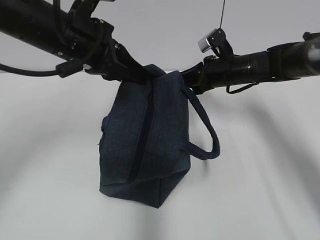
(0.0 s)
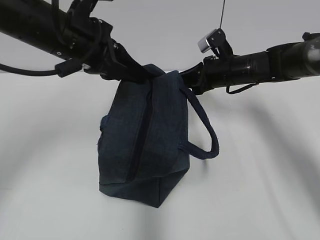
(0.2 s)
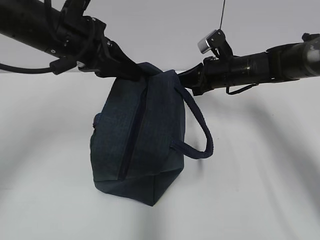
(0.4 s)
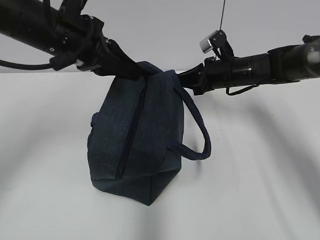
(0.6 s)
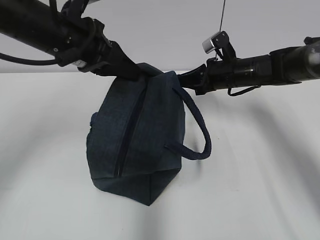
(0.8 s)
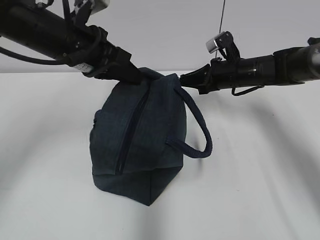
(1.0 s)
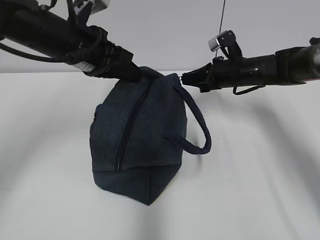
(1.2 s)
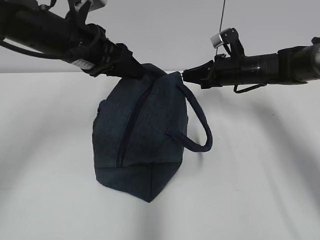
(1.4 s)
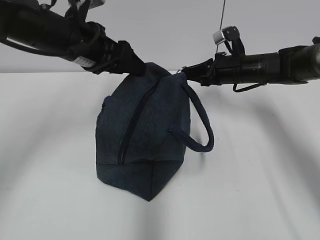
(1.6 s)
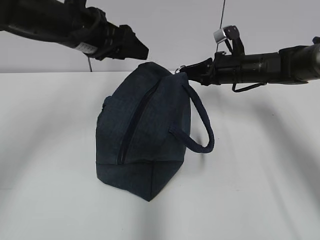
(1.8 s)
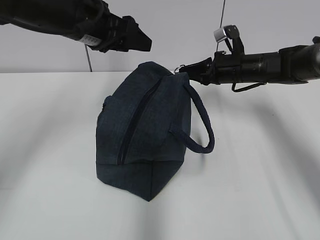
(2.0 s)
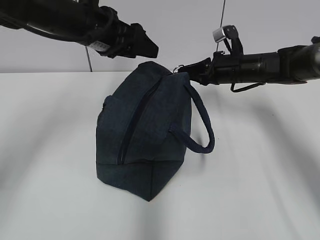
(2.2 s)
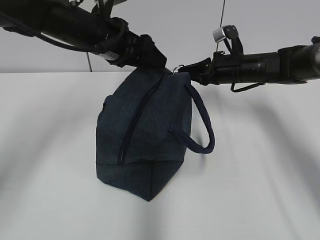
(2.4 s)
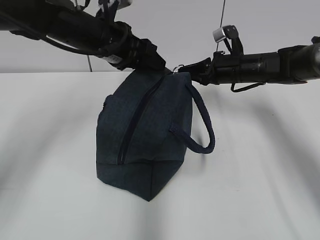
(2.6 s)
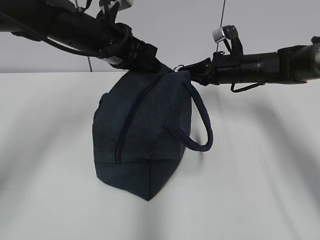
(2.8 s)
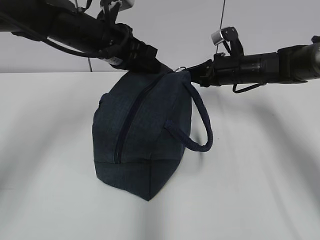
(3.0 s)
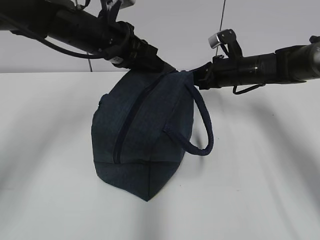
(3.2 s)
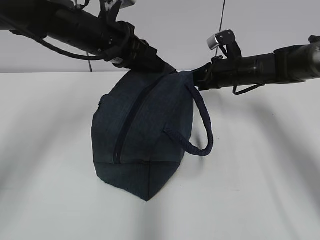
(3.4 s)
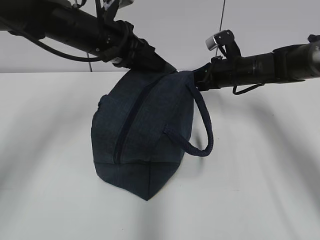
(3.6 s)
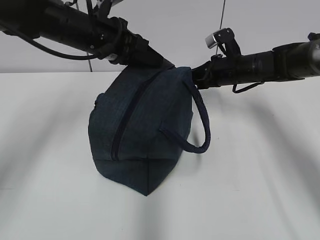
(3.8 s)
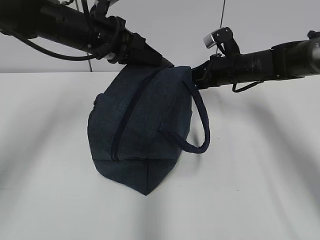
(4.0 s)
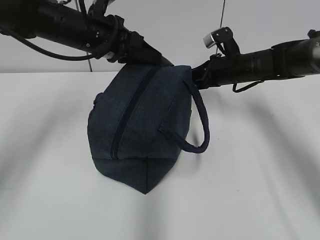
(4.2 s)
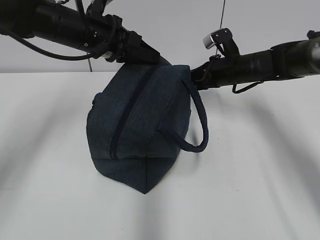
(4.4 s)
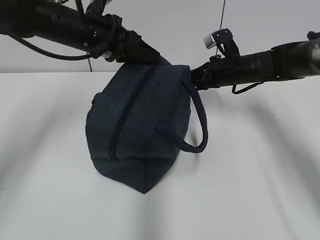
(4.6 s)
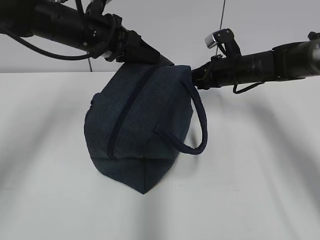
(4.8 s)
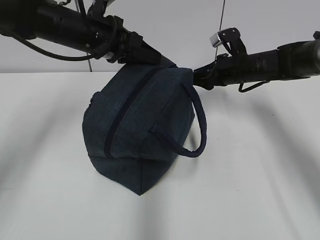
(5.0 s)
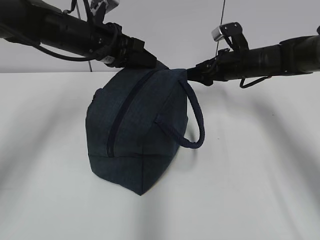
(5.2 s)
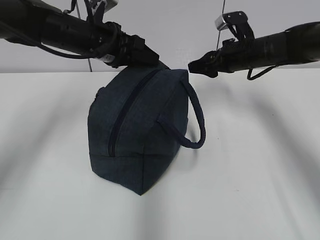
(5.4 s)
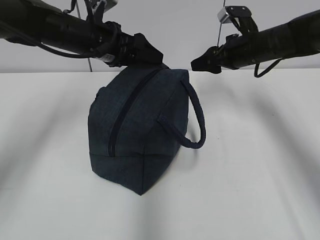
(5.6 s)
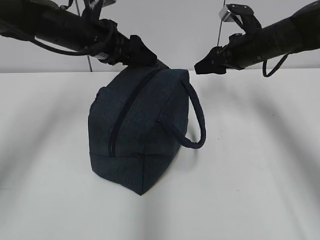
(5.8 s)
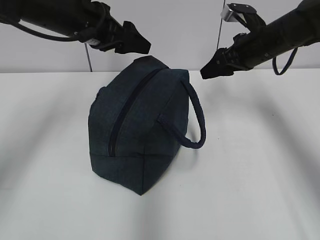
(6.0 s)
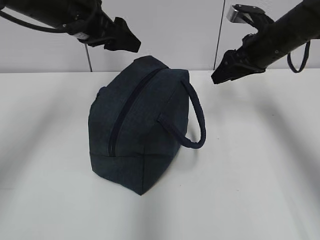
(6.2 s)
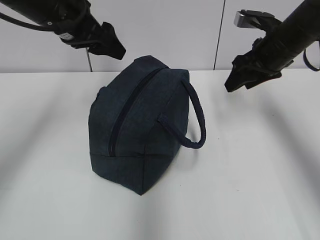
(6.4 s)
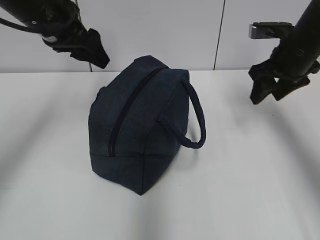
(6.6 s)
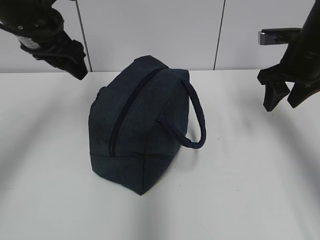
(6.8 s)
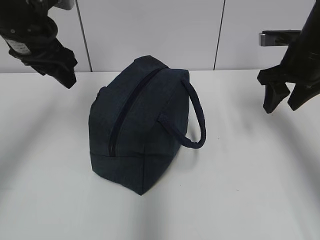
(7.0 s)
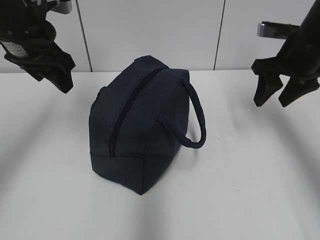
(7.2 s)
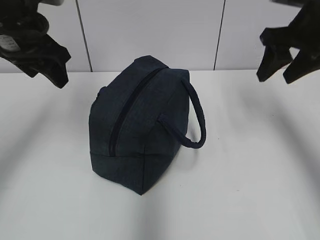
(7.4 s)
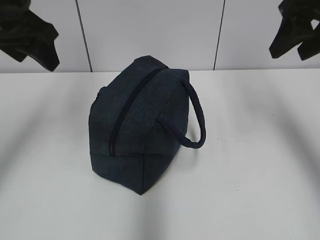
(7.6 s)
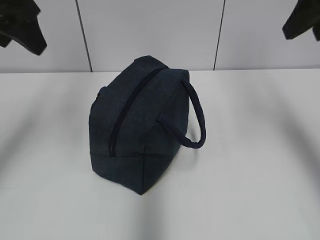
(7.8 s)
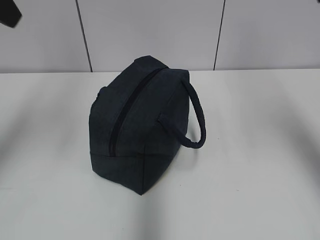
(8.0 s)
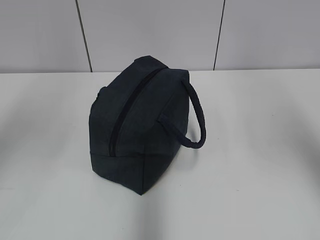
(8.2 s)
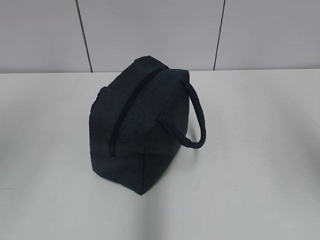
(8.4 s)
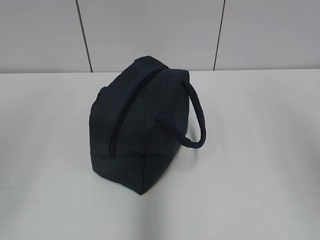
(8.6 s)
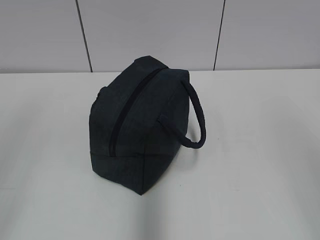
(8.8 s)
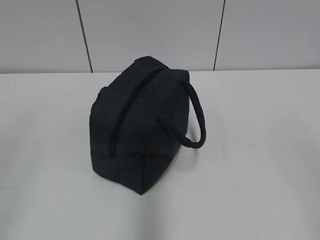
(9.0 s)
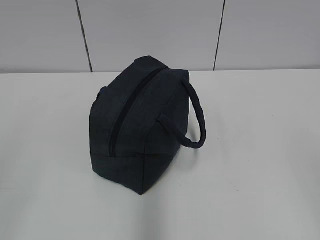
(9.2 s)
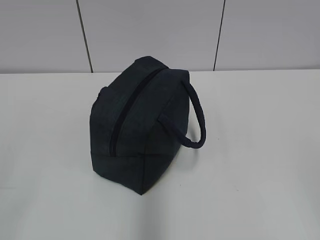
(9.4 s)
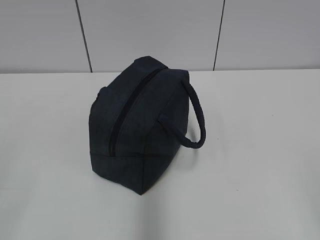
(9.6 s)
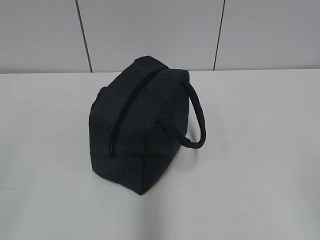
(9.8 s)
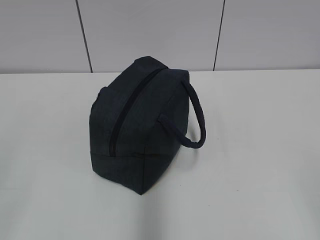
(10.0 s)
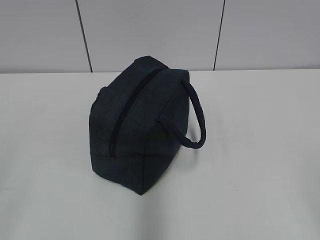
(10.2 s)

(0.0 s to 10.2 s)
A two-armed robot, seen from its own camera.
Step, 0.0 s - 4.6 s: Pull the zipper with your right hand.
Step, 4.8 s - 5.6 s: Grab the lunch bag with your left hand.
0.0 s - 1.4 s: The left gripper opens up.
1.4 s - 3.0 s: The left gripper ends up some 5 cm from where it was, and closes up.
3.0 s - 4.4 s: The grippers move only a little.
4.4 s - 5.8 s: The left gripper opens its fingers. Meanwhile the right gripper travels upward by approximately 5 cm, and opens its fingers.
5.8 s - 7.2 s: The left gripper heads to the left and backward, covering approximately 10 cm, while the right gripper travels backward by some 5 cm.
7.2 s - 8.8 s: The two grippers go about 35 cm backward.

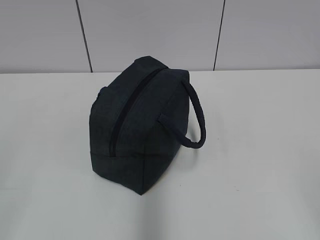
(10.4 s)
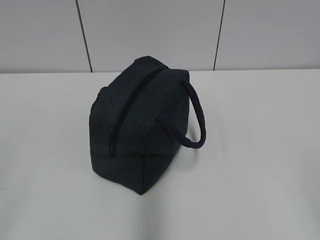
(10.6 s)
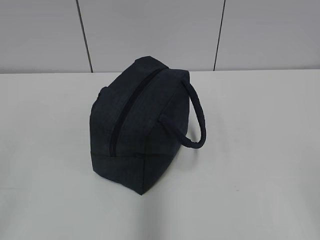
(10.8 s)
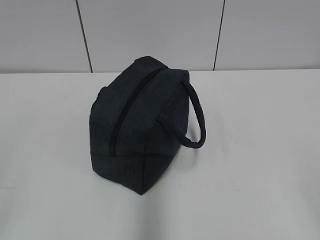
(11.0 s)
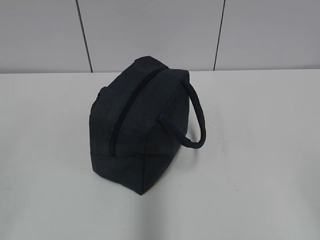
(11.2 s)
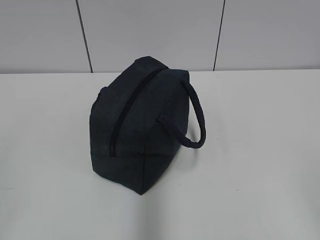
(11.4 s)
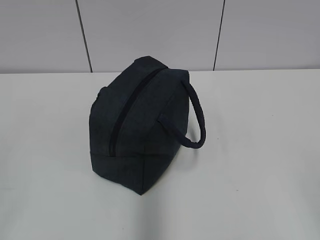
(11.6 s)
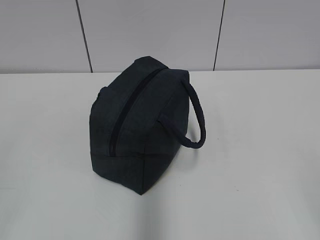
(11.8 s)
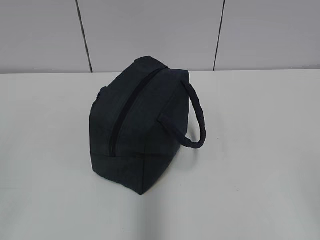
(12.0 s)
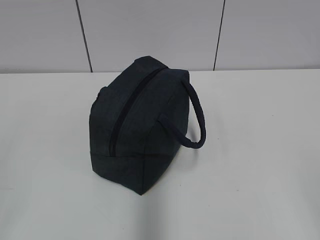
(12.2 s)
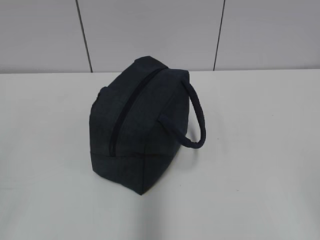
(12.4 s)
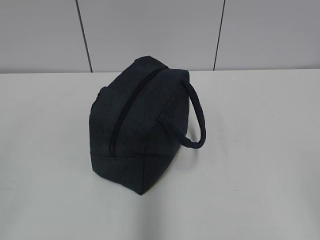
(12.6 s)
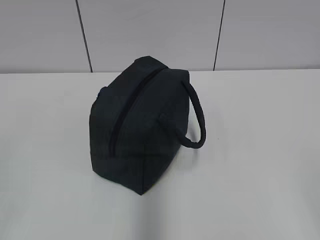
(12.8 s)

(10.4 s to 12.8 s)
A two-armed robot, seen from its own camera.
11.6 s - 12.8 s: Both grippers stay put.

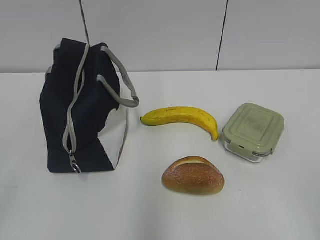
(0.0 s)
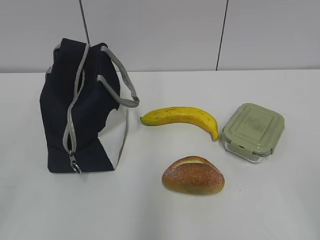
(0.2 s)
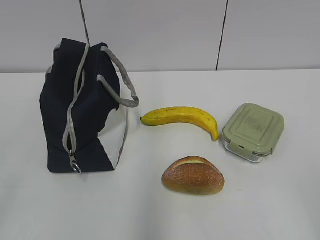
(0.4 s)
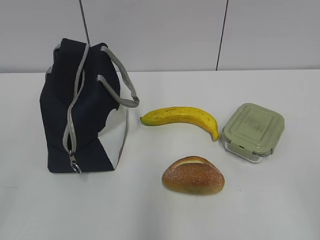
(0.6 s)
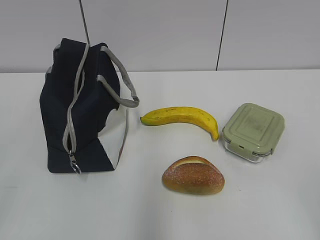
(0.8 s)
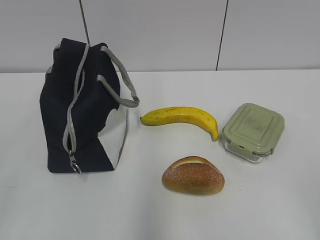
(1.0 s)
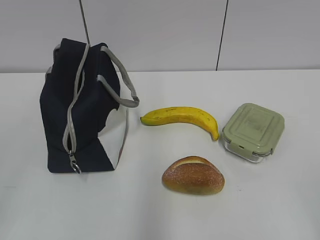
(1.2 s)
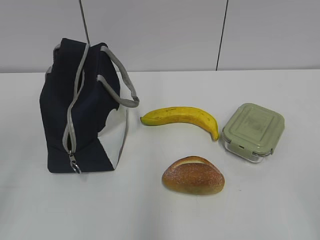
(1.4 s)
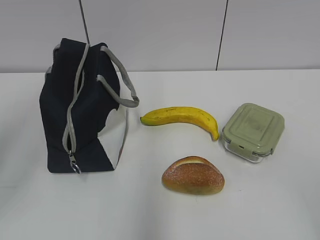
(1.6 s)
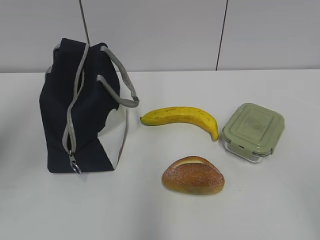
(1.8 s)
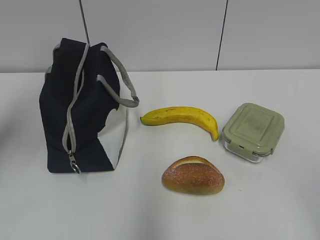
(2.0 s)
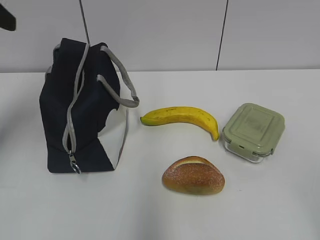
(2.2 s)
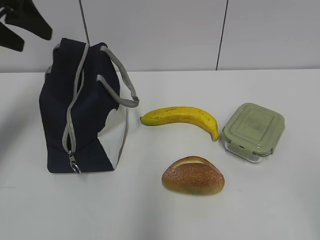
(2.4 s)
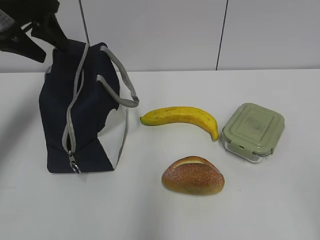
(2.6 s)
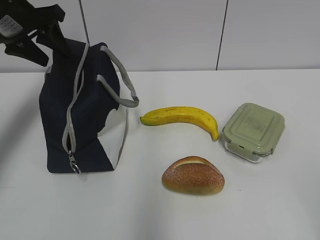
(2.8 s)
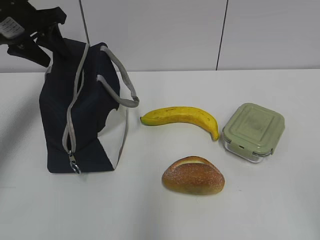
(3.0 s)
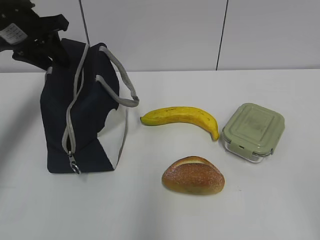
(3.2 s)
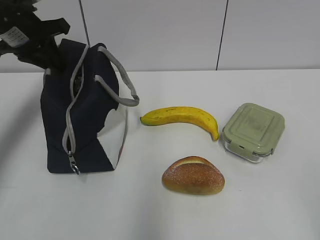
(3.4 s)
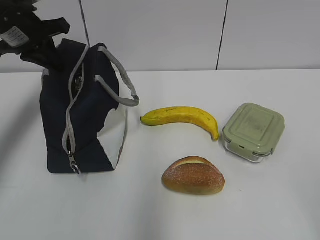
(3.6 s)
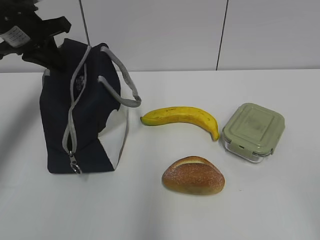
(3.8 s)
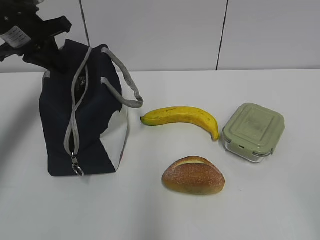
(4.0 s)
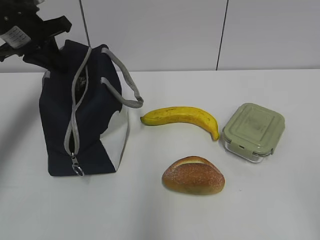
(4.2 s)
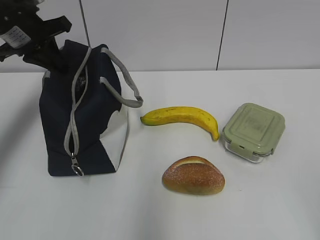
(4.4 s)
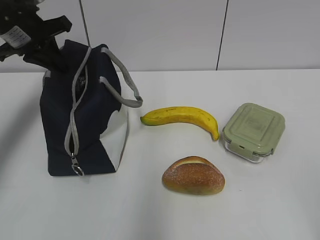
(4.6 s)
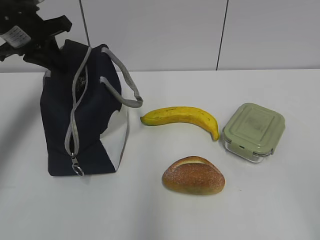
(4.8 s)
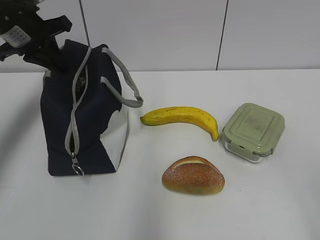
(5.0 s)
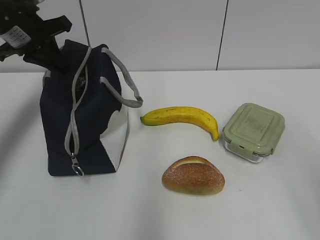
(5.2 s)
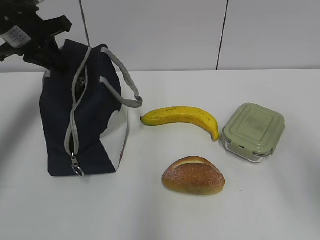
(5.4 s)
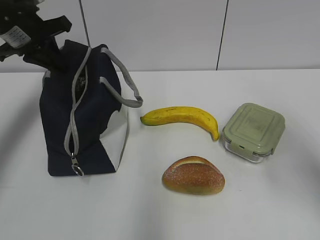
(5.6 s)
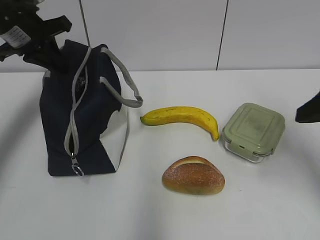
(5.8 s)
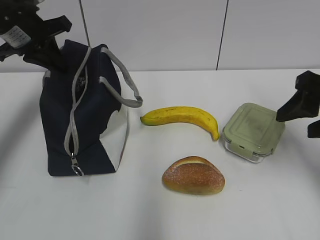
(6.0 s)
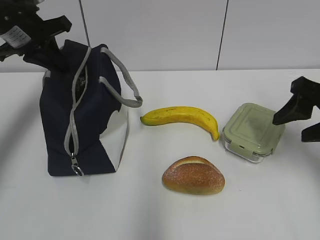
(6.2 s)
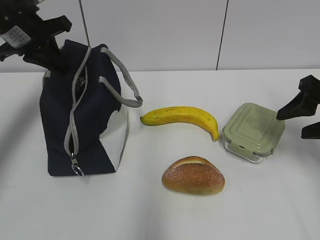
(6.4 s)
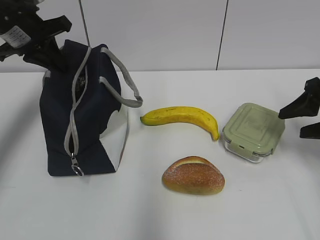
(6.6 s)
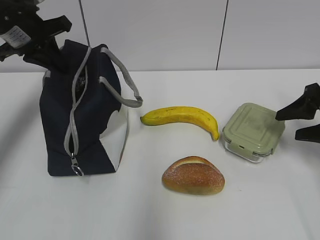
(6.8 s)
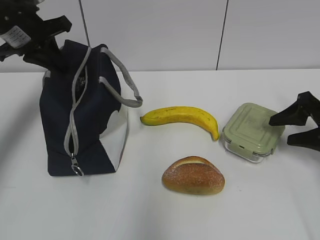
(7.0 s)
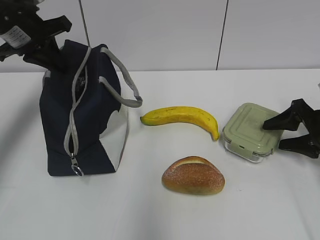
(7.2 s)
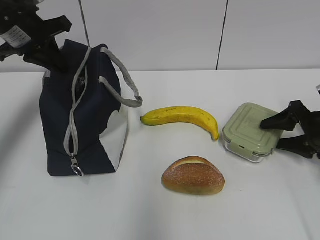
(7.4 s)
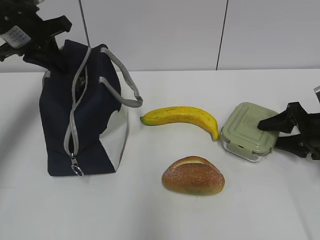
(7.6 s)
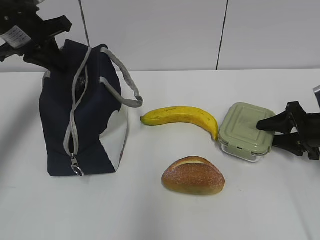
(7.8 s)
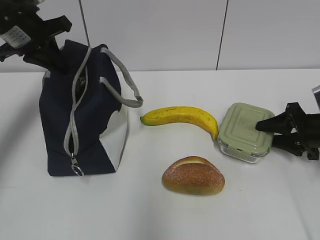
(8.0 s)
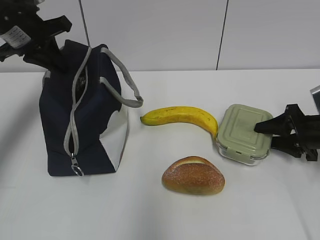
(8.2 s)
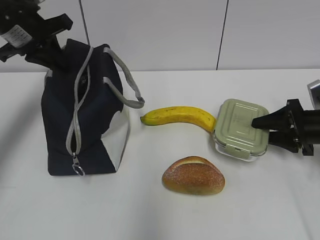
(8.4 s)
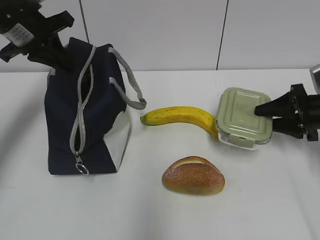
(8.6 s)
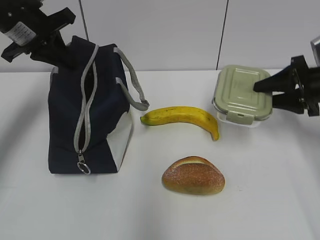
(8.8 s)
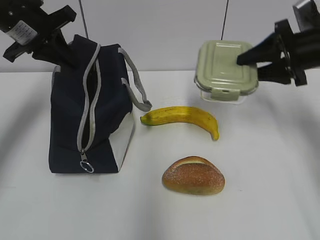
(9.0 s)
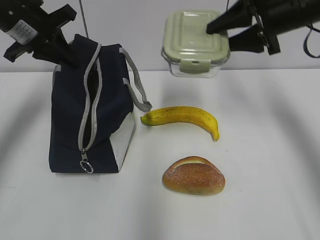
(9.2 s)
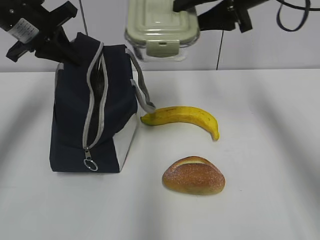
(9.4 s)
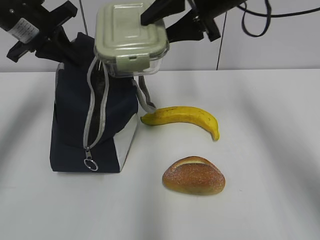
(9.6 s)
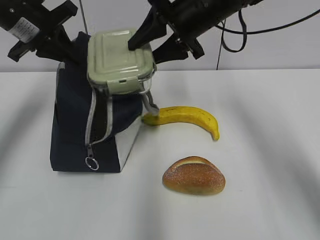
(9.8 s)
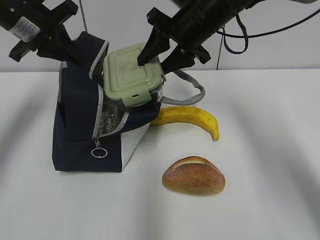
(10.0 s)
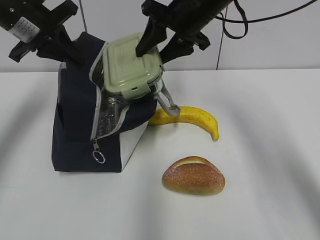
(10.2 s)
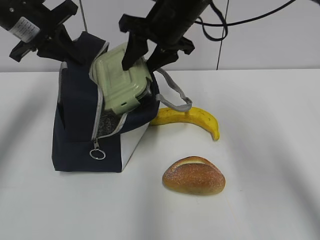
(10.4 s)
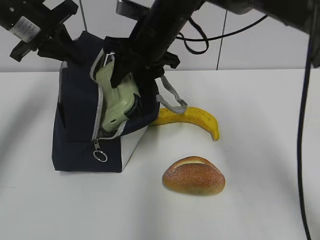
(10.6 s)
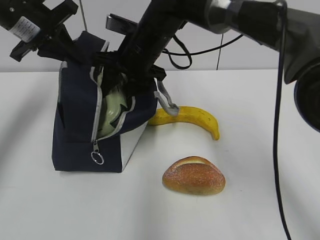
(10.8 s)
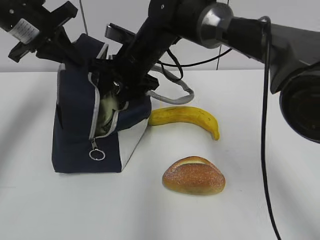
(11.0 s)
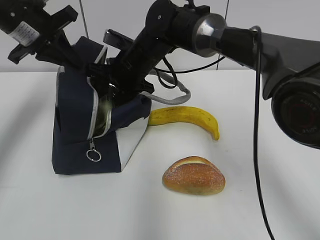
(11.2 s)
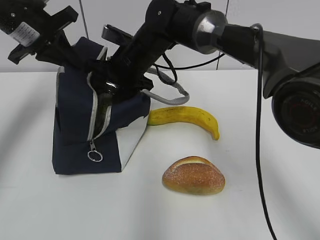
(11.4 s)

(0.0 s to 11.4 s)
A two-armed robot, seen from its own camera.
Step, 0.0 s - 7.8 s: Grab the lunch box with your right hand.
Step, 8.0 s - 9.6 s: Place it into the bag with your right hand.
1.4 s - 2.8 s: The left gripper travels forward by approximately 35 cm.
2.8 s - 4.2 s: The left gripper closes.
4.2 s - 5.6 s: The right gripper goes roughly 15 cm forward.
5.6 s - 7.2 s: The right gripper travels downward, forward and to the right by some 25 cm.
7.2 s - 8.6 s: There are only small adjustments of the grippers.
8.6 s - 10.0 s: The right gripper goes approximately 30 cm to the left, upward and forward.
10.0 s - 11.4 s: The right gripper travels to the left and downward by some 15 cm.
